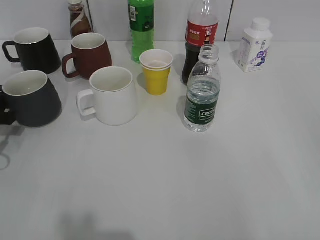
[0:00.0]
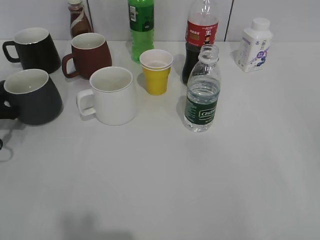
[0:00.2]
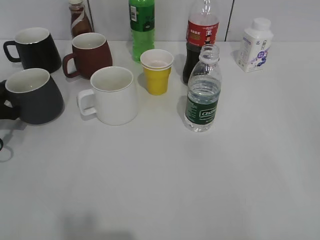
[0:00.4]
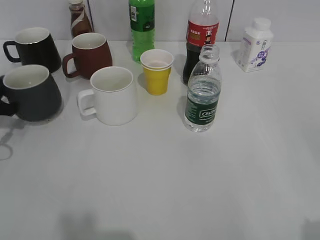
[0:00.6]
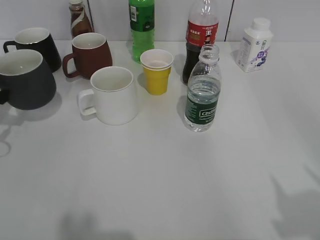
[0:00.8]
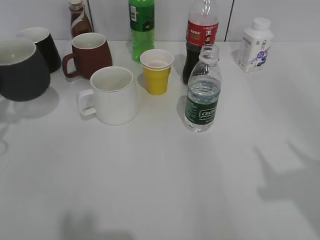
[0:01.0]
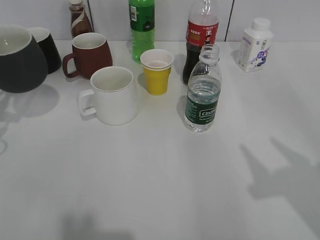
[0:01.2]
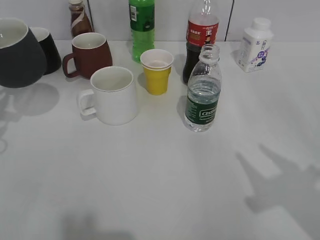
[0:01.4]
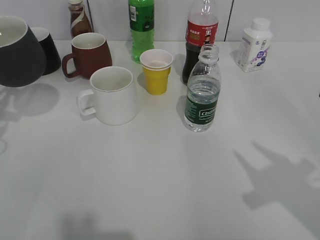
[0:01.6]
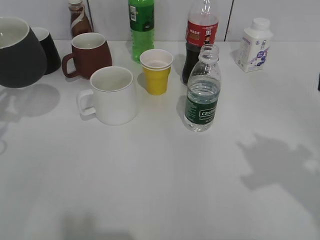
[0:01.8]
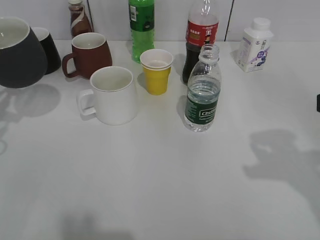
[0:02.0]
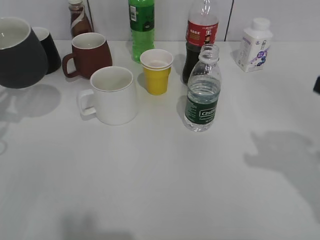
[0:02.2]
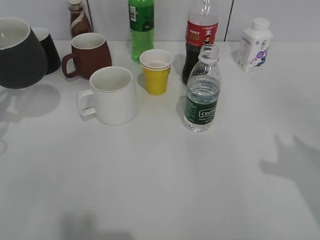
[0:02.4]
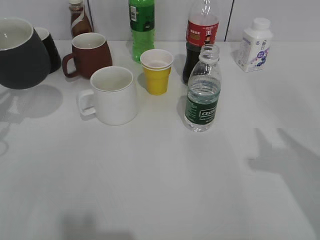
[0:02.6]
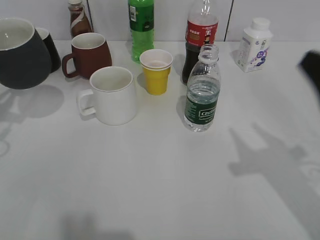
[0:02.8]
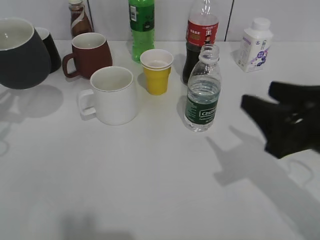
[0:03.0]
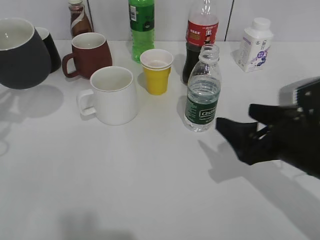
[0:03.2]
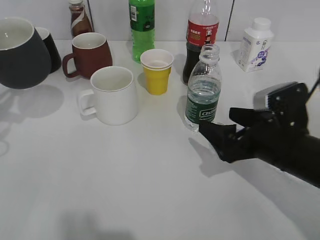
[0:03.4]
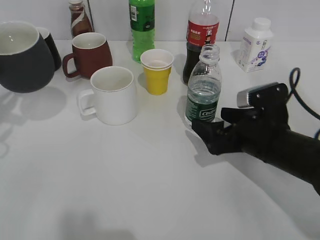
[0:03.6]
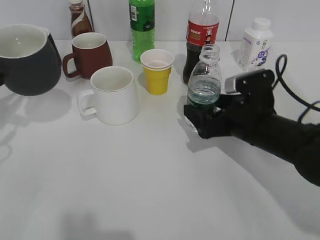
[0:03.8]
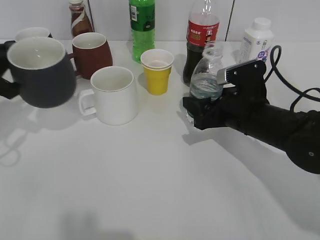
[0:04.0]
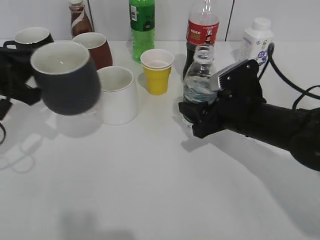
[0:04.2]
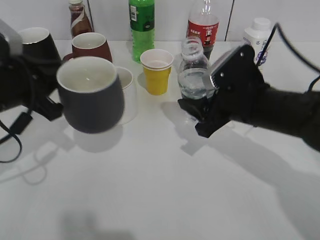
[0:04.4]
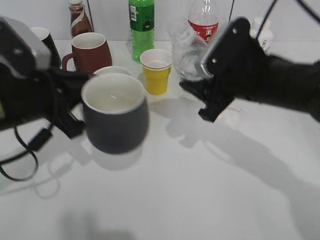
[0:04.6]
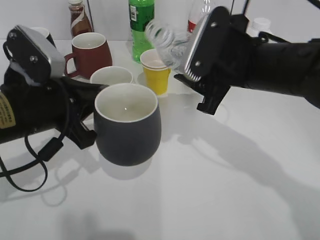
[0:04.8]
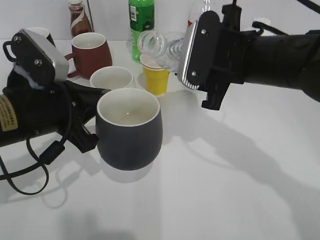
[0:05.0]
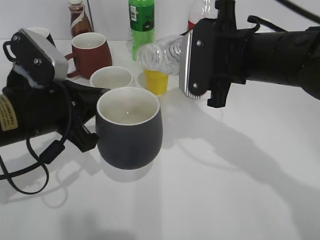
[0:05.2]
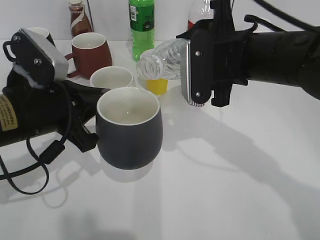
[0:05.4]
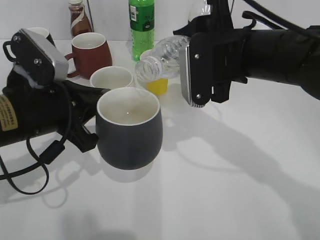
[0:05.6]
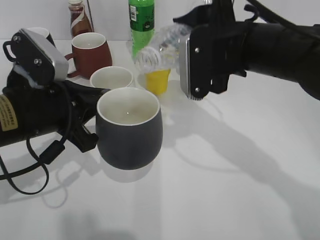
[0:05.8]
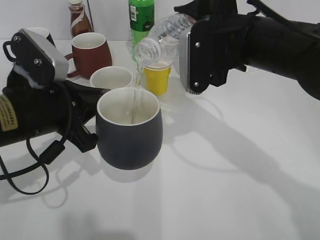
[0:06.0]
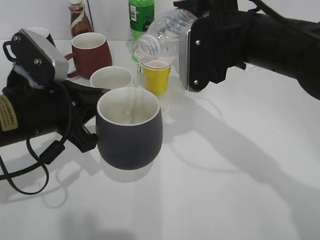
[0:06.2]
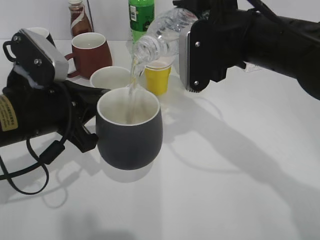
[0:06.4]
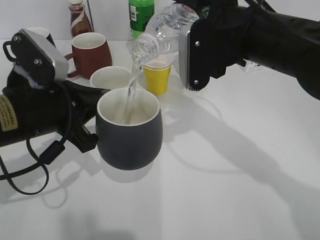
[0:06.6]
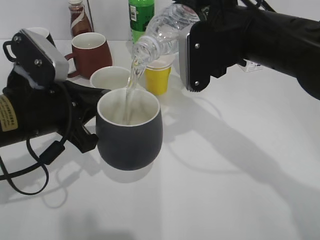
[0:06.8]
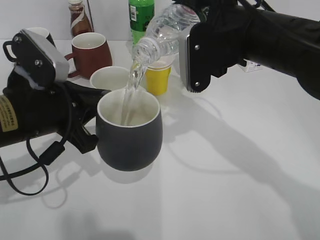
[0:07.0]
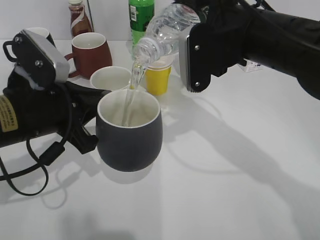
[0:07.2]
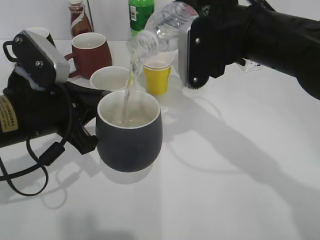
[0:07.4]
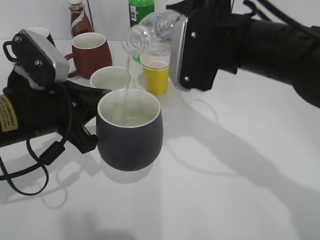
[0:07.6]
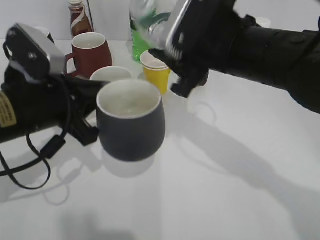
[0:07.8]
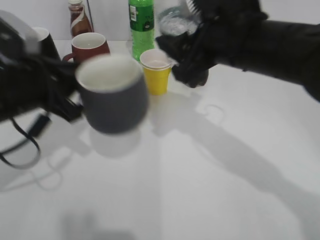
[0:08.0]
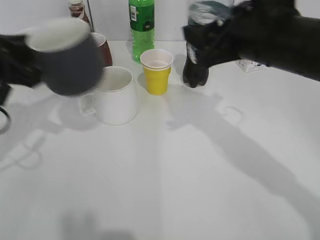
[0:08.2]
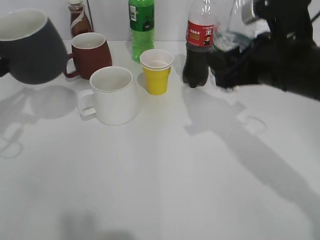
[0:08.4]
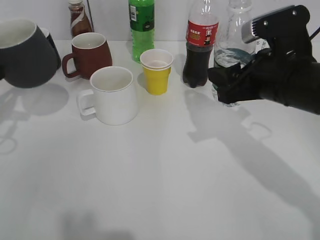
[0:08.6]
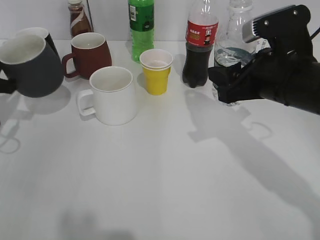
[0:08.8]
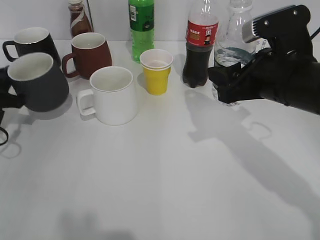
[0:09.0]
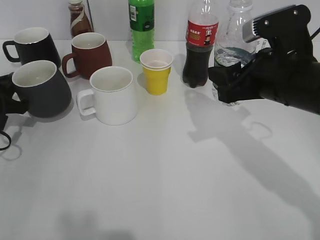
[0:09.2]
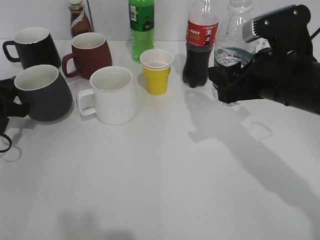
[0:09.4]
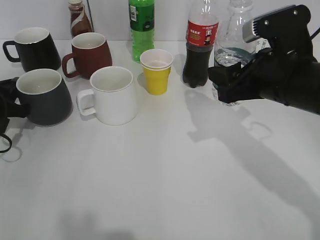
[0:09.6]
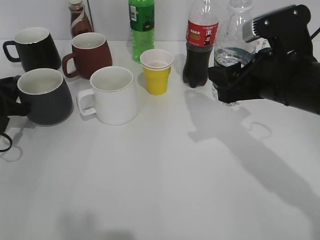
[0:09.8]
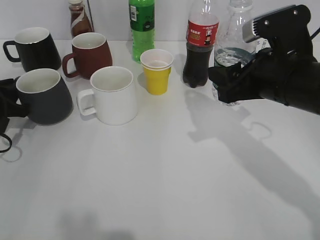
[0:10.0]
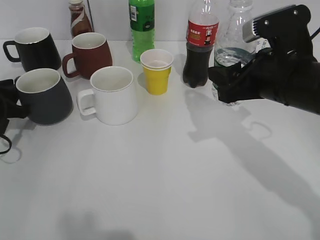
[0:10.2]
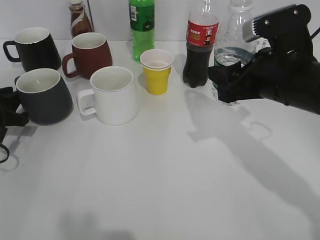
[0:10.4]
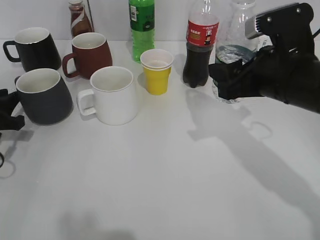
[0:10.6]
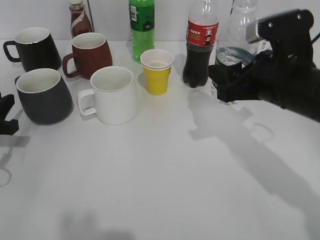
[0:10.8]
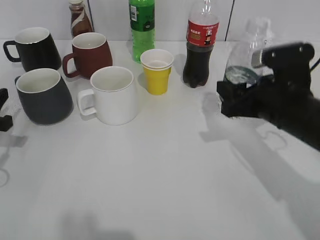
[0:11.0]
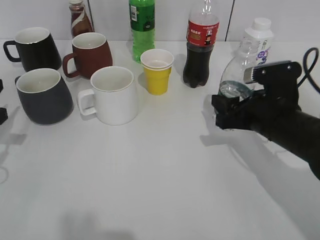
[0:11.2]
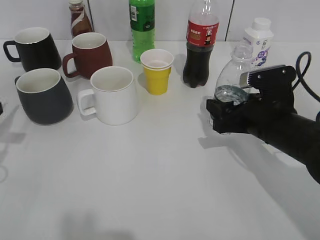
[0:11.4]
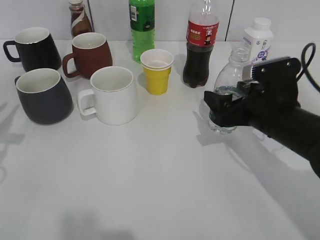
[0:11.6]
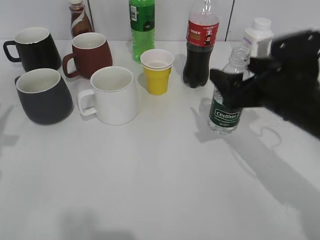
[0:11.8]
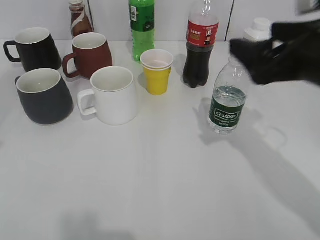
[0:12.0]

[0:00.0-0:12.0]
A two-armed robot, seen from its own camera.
Step, 0:00.4 to 0:01.4: Lift the black cup with left gripper.
Step, 0:01.6 to 0:03.8: Grasp the bottle with water with right gripper.
Step, 0:04.0 to 0:08.0: Pour the water from bottle to cup with right gripper.
Step, 0:08.2 to 0:10.6: Place the black cup on the table with left gripper.
Step, 0:10.8 to 0:11.8: Place the water bottle on the table with right gripper.
0:00.0 to 0:01.6: The left gripper goes some 10 cm upward, and closes up.
0:01.6 to 0:03.0: The right gripper shifts about 5 cm forward.
0:03.0 to 0:04.4: The right gripper shifts roughly 15 cm forward, to the left and downward, and opens and closes again, while the left gripper is displaced to the right by about 10 cm.
0:04.4 to 0:06.0: The right gripper moves upward, about 10 cm. The left gripper is displaced to the right by some 5 cm.
0:06.0 to 0:07.6: The grippers move only a little.
0:07.6 to 0:09.0: The left gripper goes approximately 15 cm to the left and forward; the right gripper is displaced to the right by approximately 5 cm.
0:09.0 to 0:10.4: The grippers stay close to where they were, moving slightly.
0:10.4 to 0:12.0: The left gripper shifts about 15 cm upward and backward. Meanwhile the right gripper moves approximately 10 cm downward and comes back, and opens up.

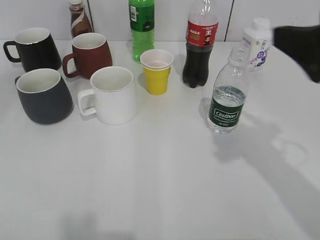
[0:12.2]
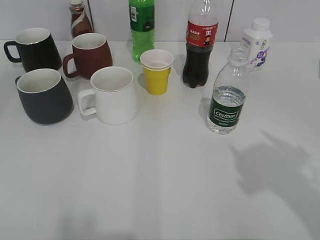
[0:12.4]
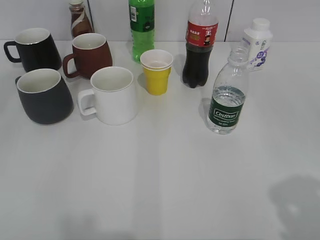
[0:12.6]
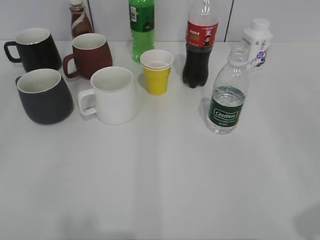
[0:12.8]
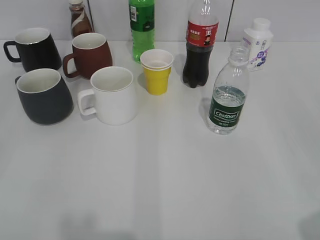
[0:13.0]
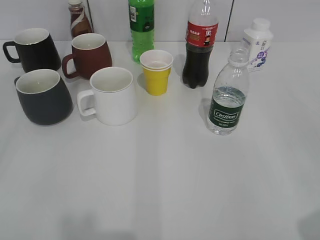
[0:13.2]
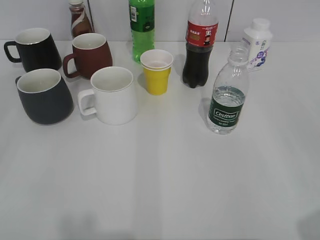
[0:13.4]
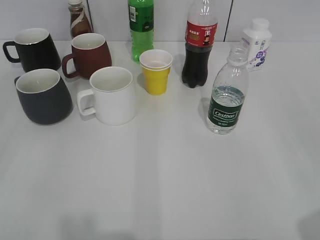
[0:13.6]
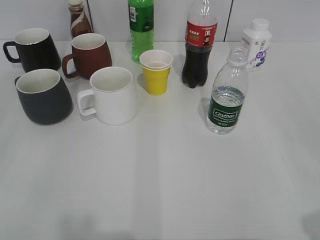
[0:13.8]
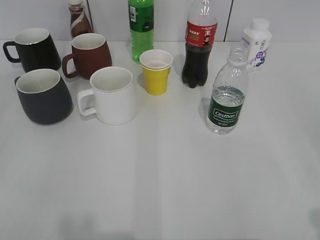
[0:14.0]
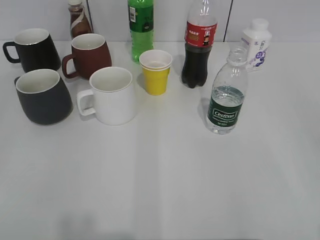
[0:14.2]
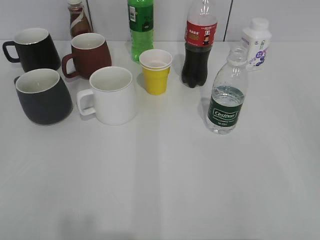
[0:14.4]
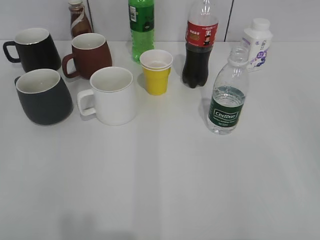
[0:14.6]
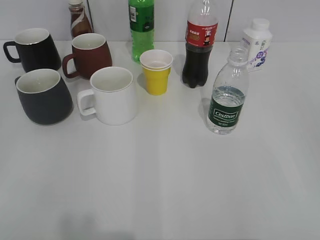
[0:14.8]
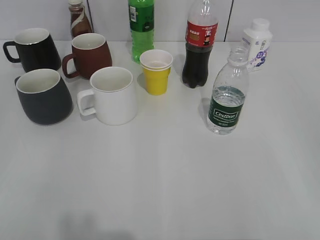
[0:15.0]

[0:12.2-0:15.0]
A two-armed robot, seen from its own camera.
0:12.2 to 0:13.6: The left gripper moves backward, about 15 cm, and opens its fingers; the right gripper goes roughly 20 cm backward and to the right.
